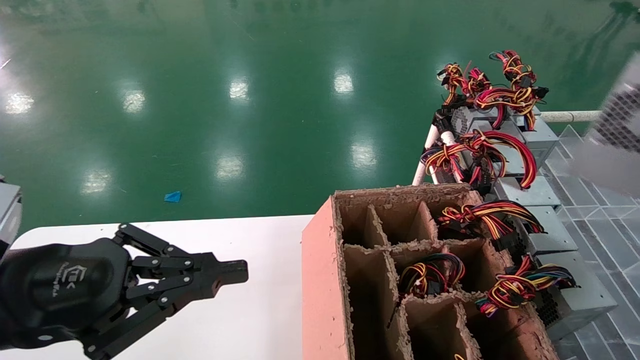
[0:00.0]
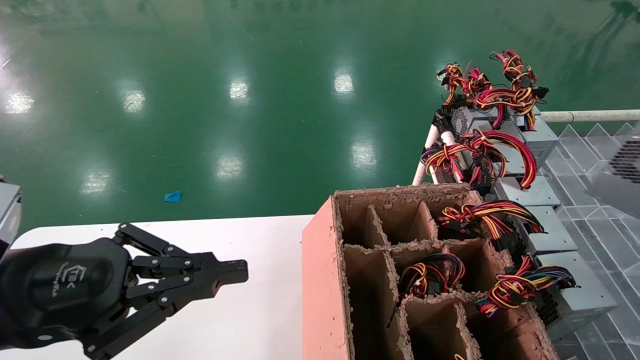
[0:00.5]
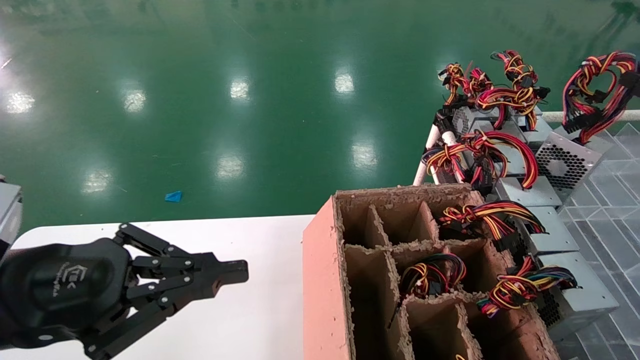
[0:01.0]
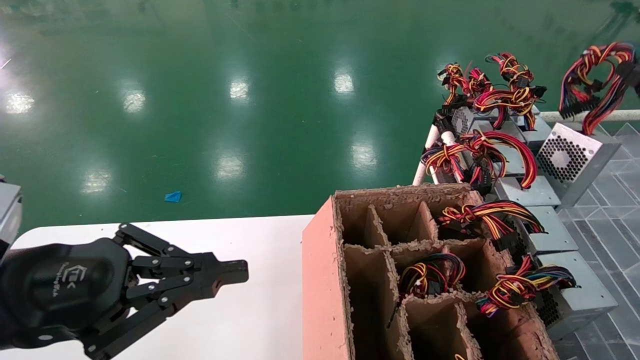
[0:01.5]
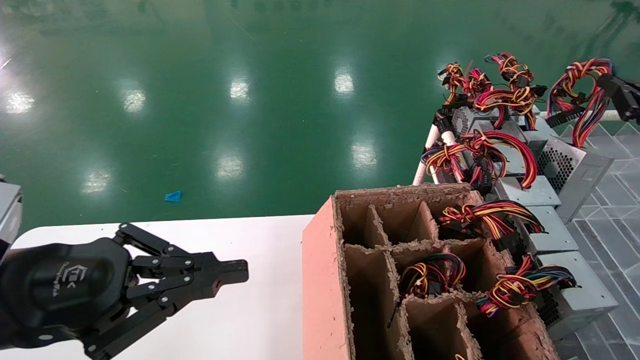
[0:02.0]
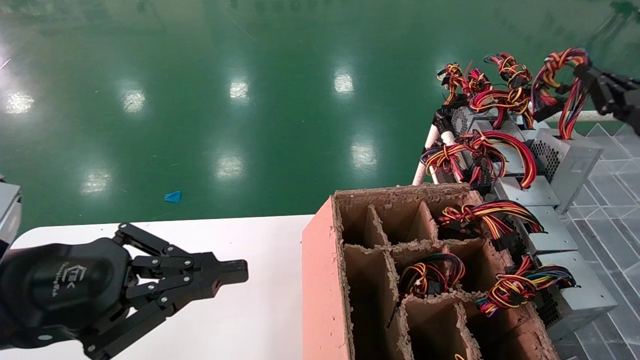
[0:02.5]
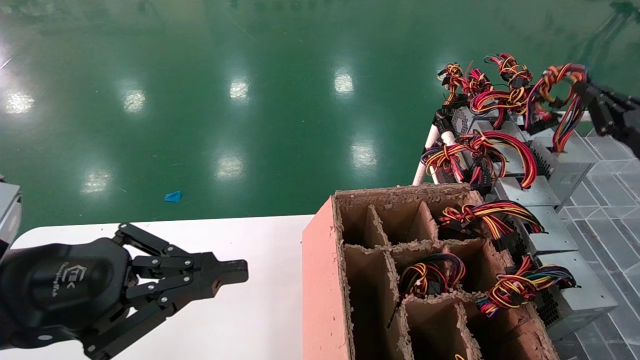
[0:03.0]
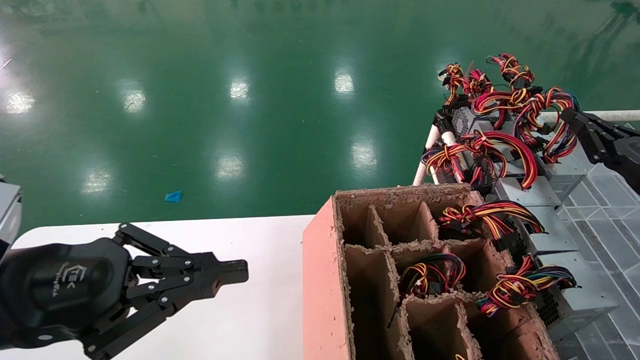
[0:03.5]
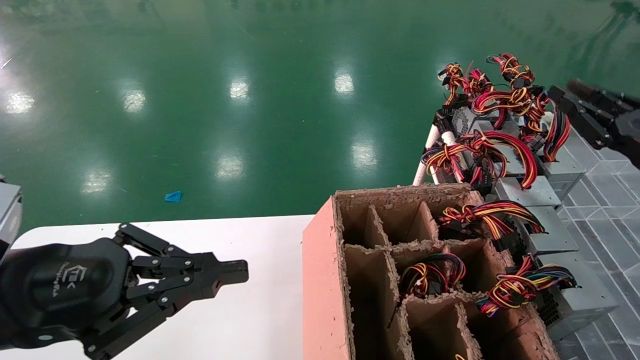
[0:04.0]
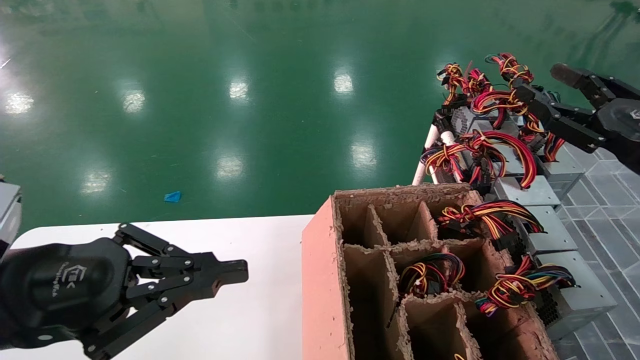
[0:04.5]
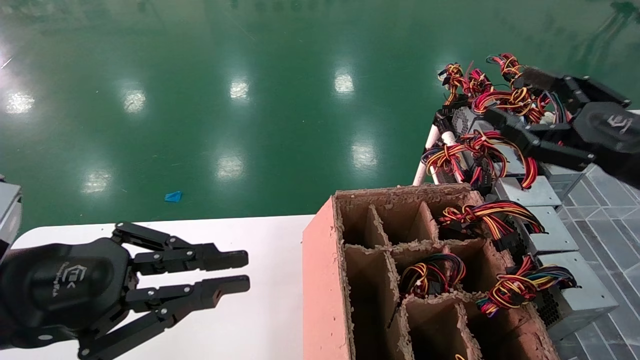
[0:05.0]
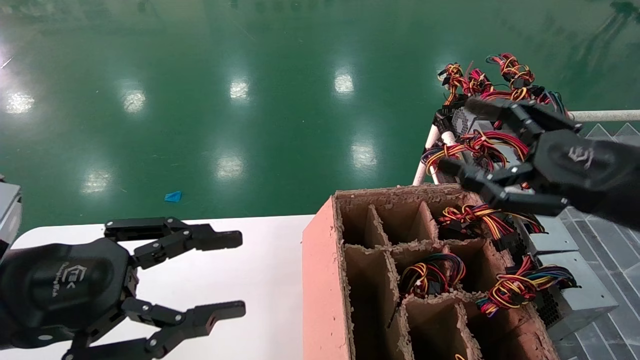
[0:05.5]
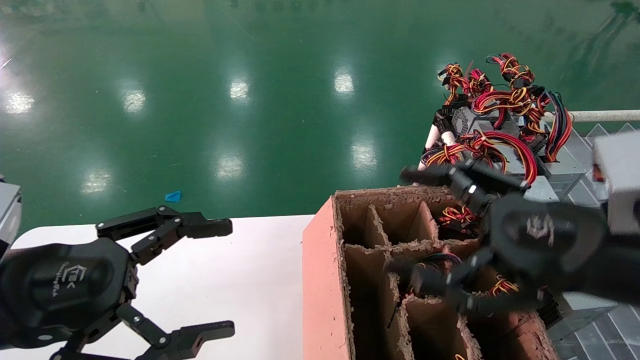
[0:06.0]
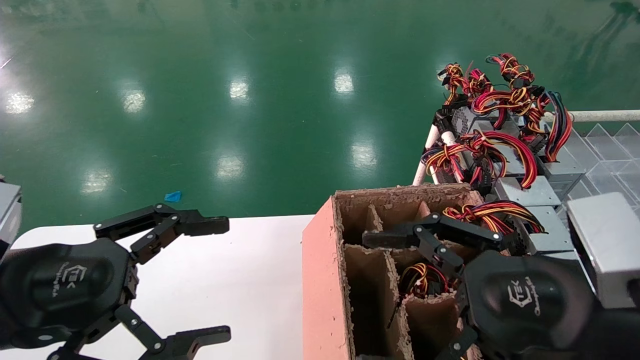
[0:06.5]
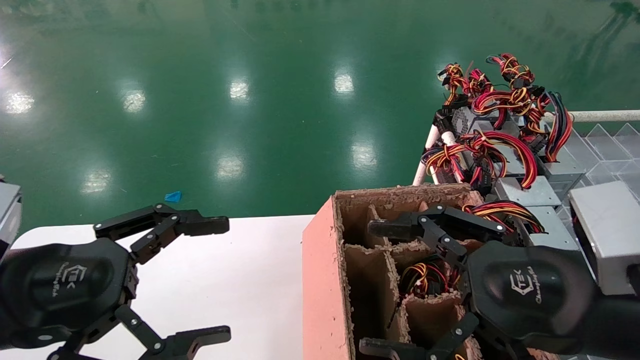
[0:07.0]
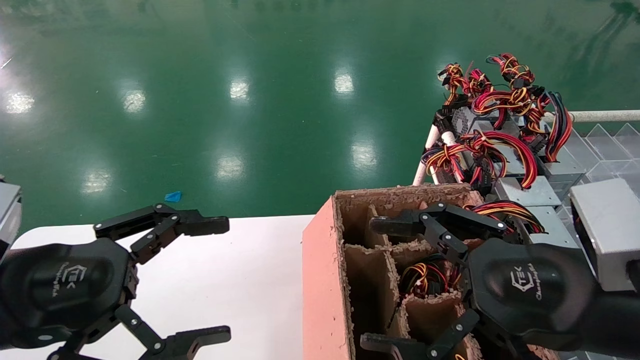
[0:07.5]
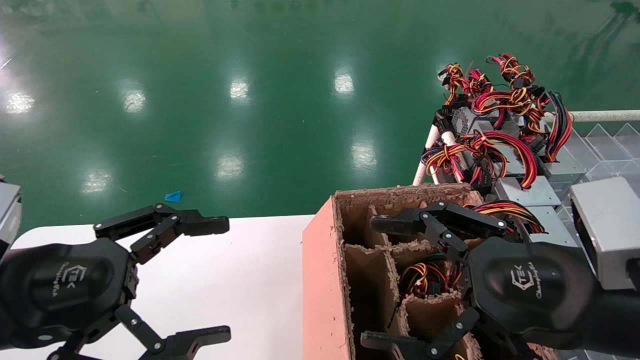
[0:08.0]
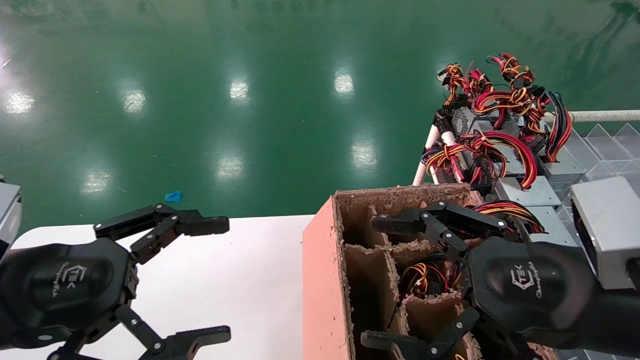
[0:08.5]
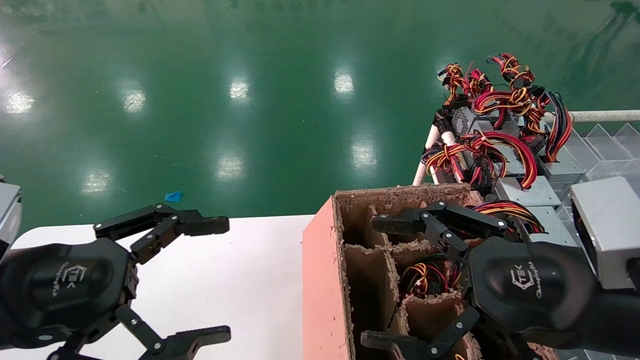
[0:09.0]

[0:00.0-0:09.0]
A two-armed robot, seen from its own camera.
Step, 0:00.0 to 0:03.5: Place the main unit power supply in the designated area.
0:00.0 to 0:02.0: The right gripper heads forward and downward, covering about 25 cm.
0:02.0 to 0:04.5: The right gripper heads to the left, covering approximately 5 cm, and opens.
0:04.5 to 0:07.0: The left gripper opens. Meanwhile the right gripper moves to the left and backward, roughly 20 cm, and opens up.
0:07.0 to 0:09.0: Neither gripper changes place.
